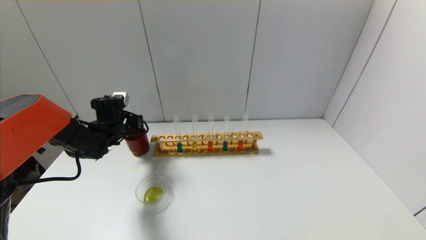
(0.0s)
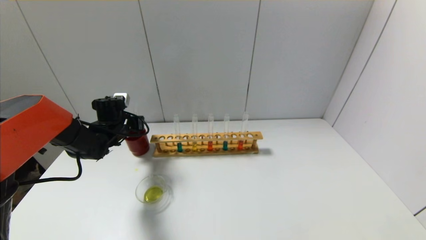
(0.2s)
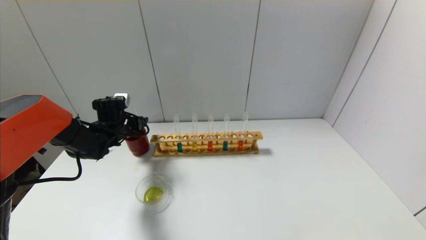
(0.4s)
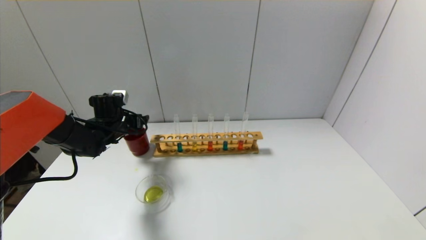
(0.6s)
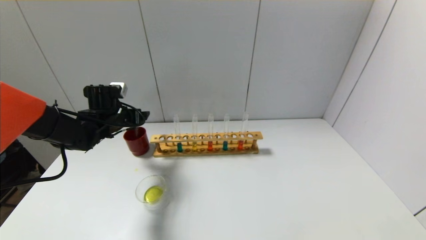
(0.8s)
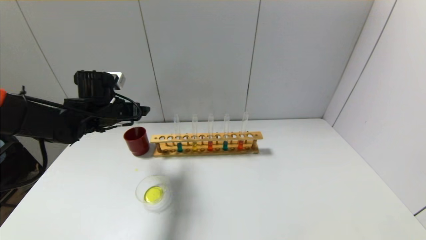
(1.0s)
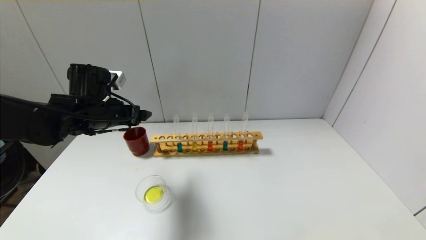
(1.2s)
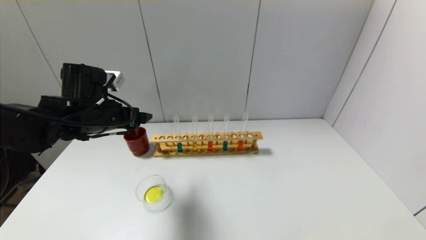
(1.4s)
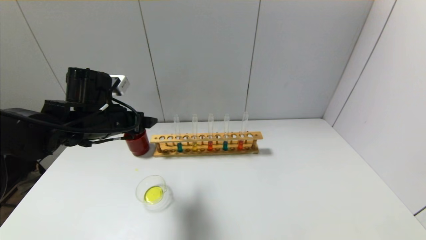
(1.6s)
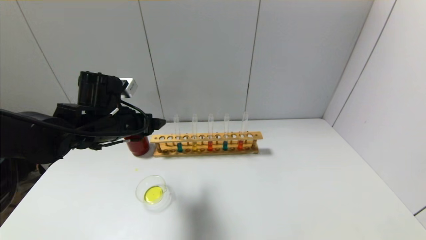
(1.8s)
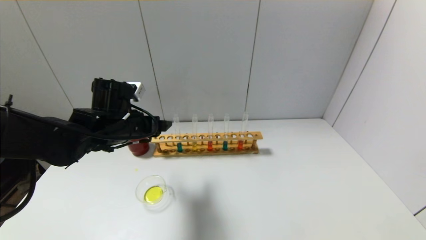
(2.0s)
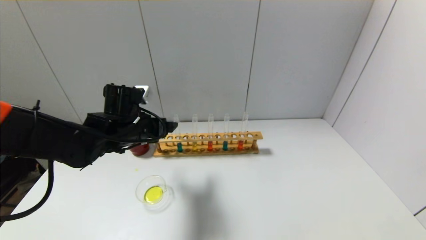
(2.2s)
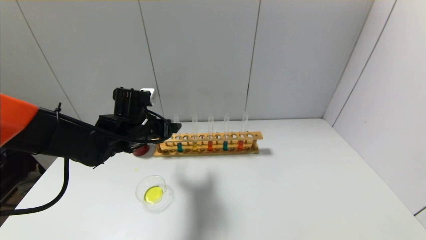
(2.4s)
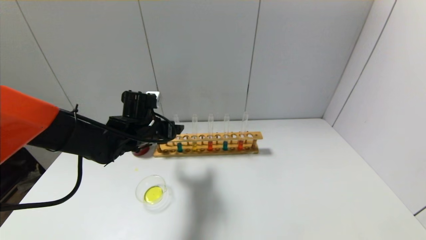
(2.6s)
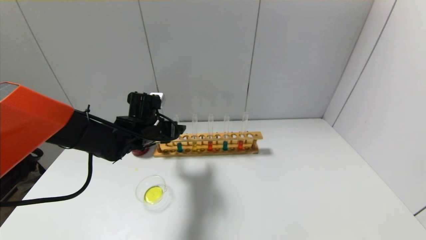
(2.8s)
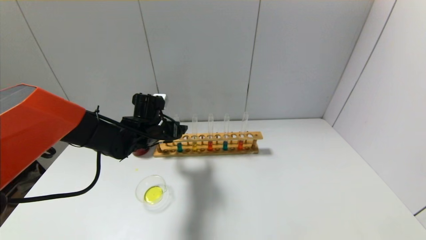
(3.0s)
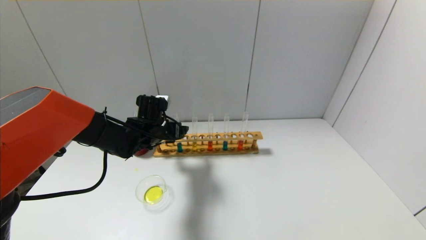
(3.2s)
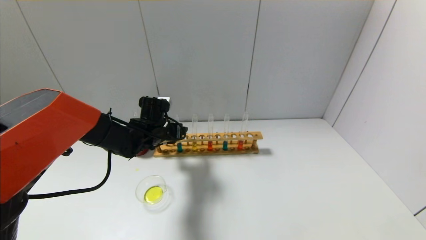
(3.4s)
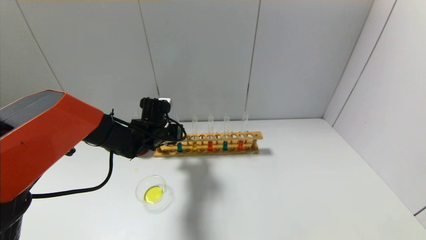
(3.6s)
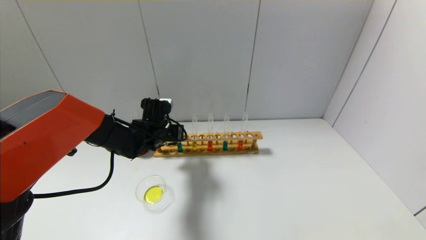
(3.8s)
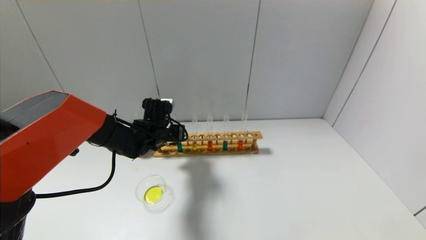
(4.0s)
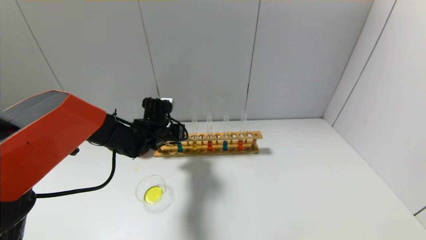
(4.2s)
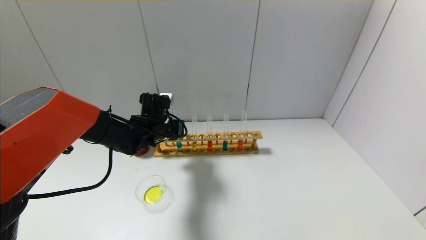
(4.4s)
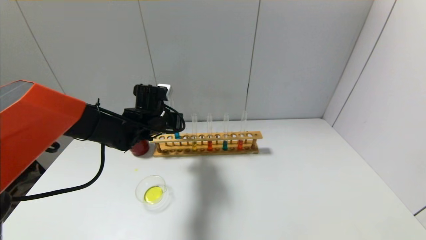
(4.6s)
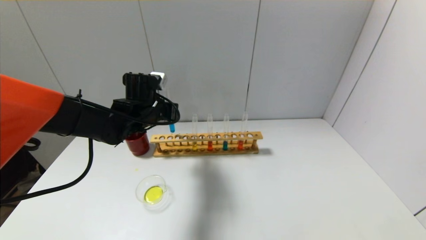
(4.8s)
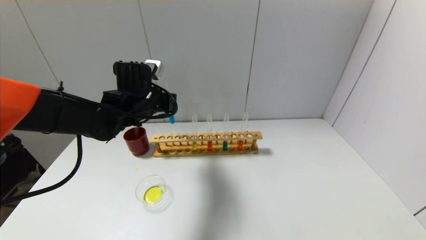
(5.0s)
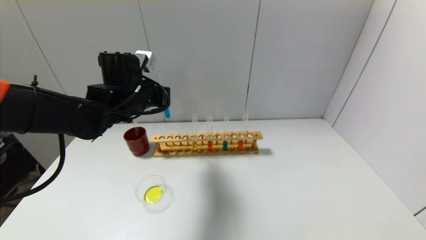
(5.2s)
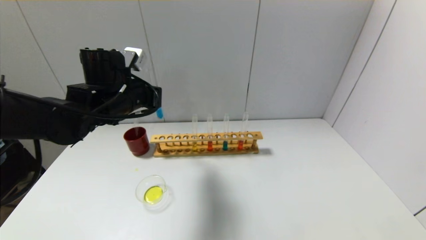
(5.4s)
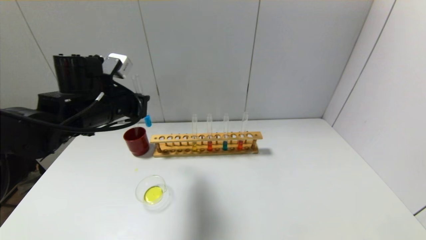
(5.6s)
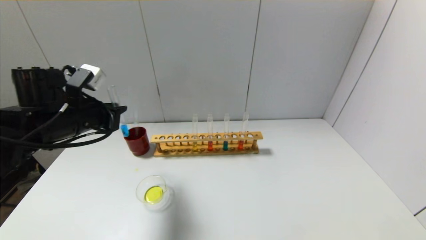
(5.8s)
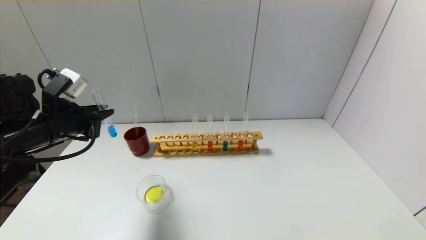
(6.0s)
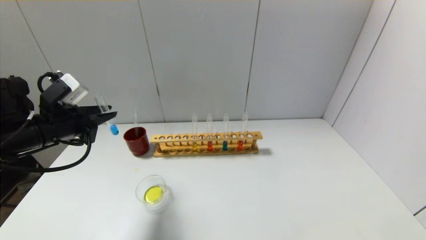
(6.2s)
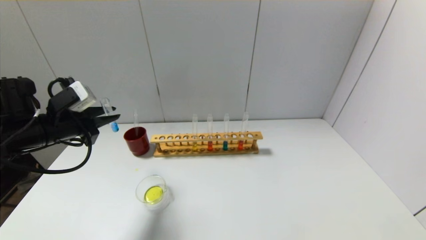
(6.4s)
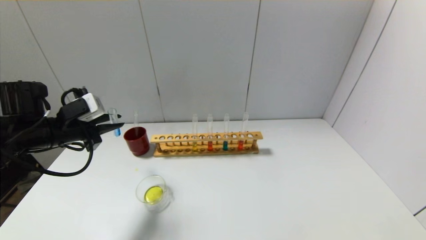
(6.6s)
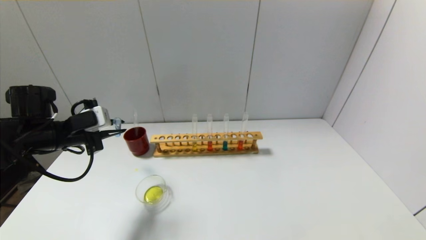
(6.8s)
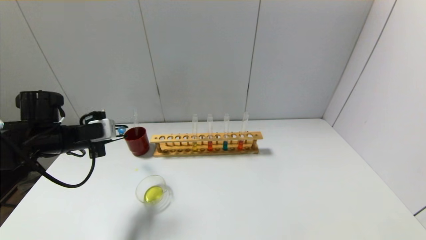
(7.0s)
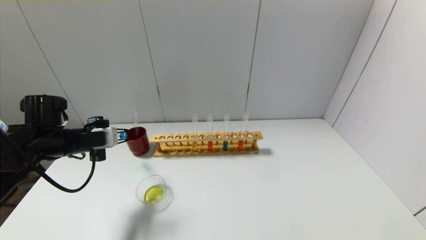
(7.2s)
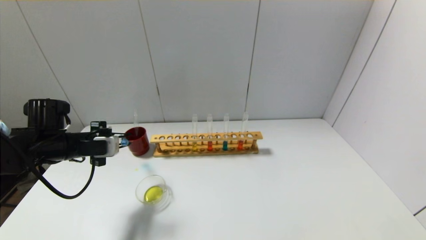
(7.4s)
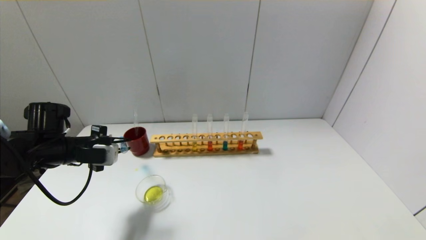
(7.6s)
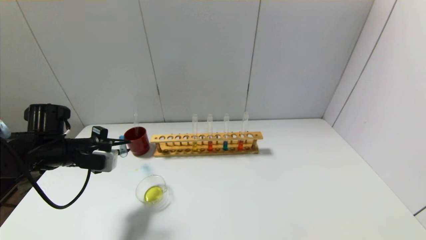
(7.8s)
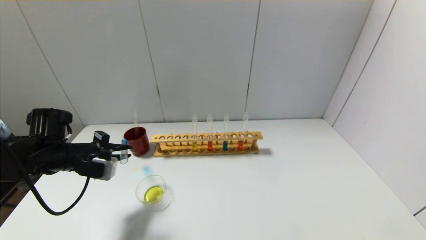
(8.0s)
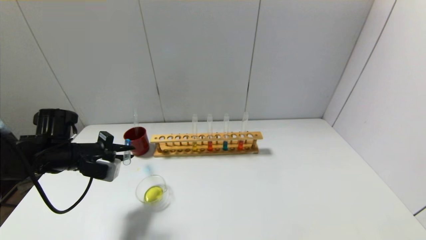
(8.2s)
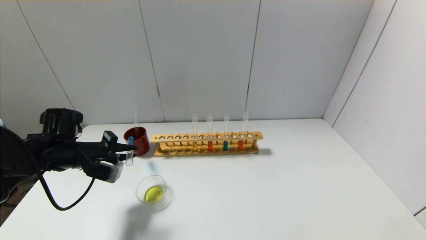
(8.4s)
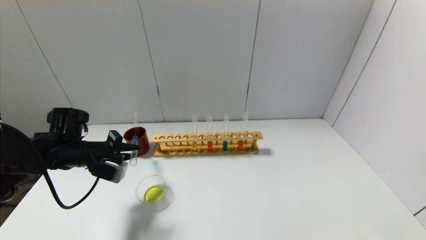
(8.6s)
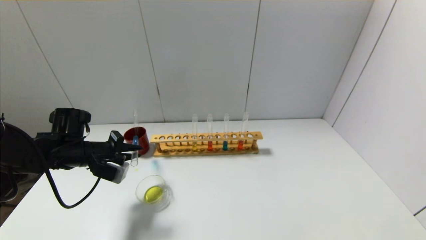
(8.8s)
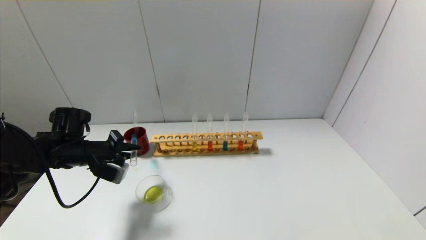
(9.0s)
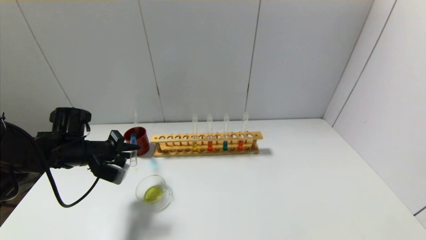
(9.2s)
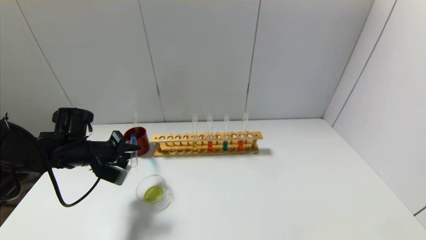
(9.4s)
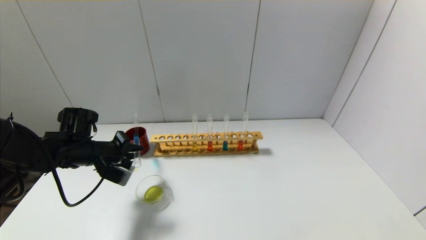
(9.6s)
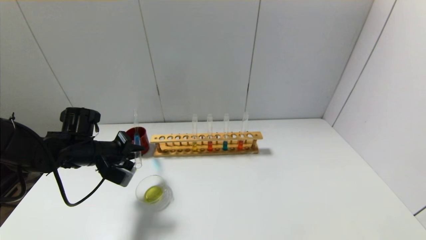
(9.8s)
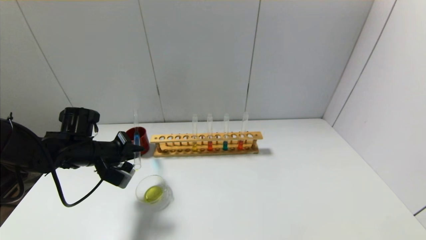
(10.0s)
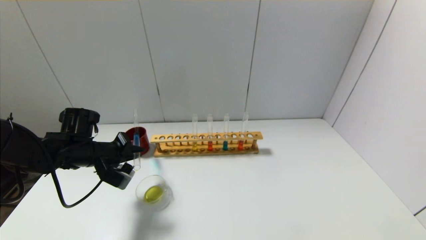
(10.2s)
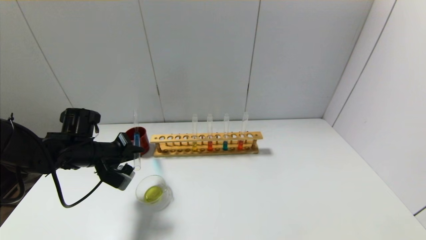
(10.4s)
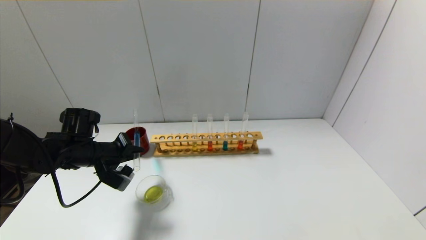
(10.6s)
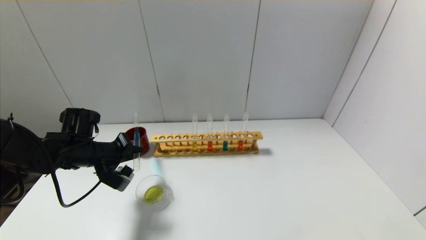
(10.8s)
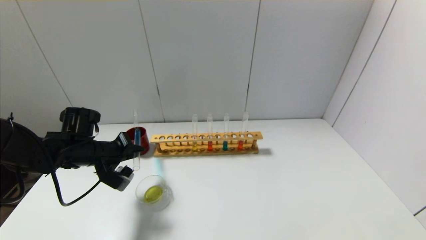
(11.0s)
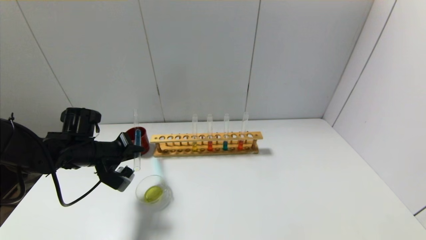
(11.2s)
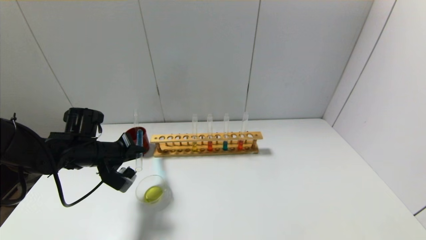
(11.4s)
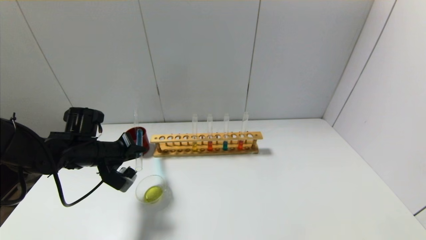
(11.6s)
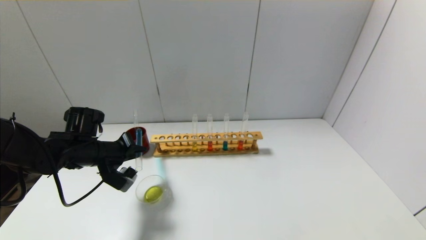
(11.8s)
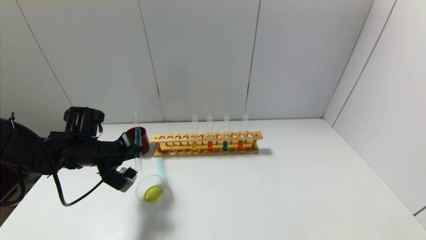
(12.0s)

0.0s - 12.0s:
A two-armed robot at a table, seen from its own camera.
Step, 0.4s - 4.0s: Grasp the blue reagent with the left gripper.
0.0s - 1.6s: The left gripper travels backward, upward and to the right by approximately 15 cm, and opens its fingers.
1.6s - 3.0s: The left gripper moves forward, downward and to the right, approximately 15 cm.
3.0s - 4.4s: The left gripper closes.
4.4s - 6.0s: The left gripper shifts approximately 20 cm to the left, backward and upward.
6.0s - 7.6s: The left gripper is displaced downward by roughly 5 cm.
9.0s - 10.4s: There are only small adjustments of the grippers.
10.4s - 12.0s: There are only small adjustments of the grippers.

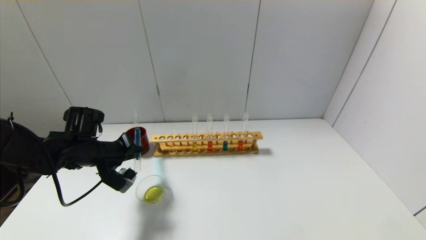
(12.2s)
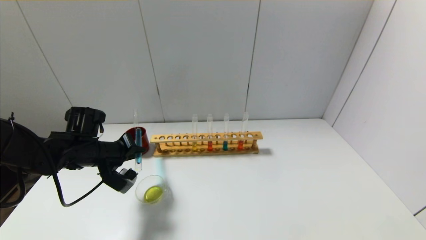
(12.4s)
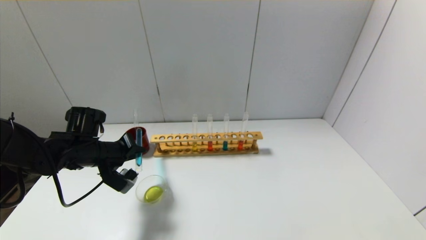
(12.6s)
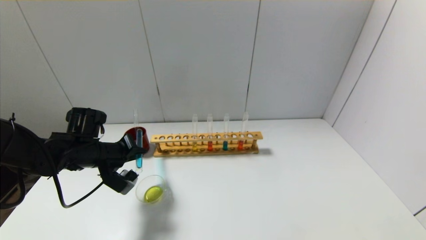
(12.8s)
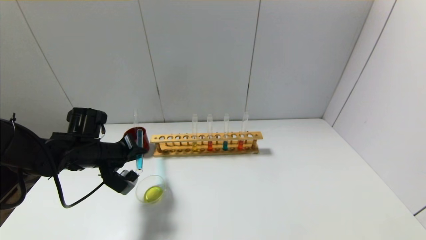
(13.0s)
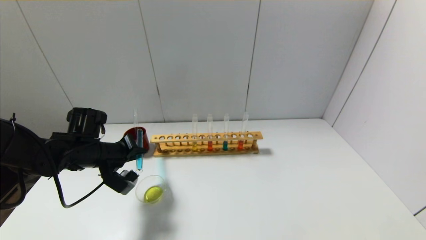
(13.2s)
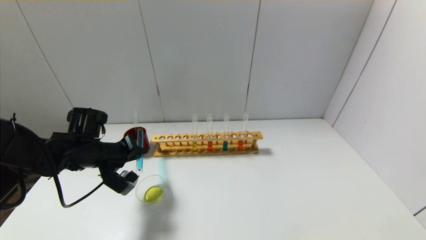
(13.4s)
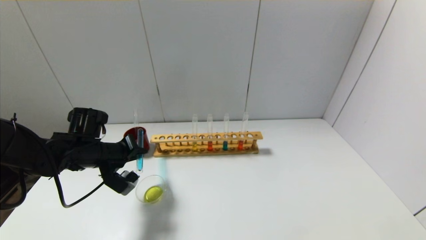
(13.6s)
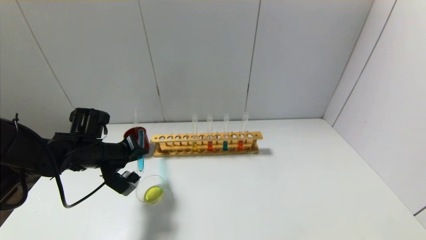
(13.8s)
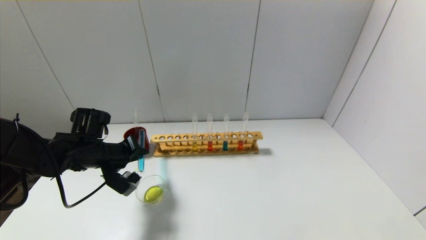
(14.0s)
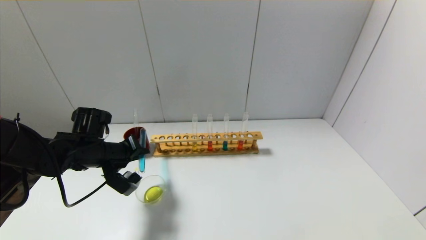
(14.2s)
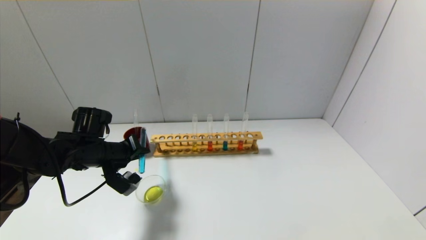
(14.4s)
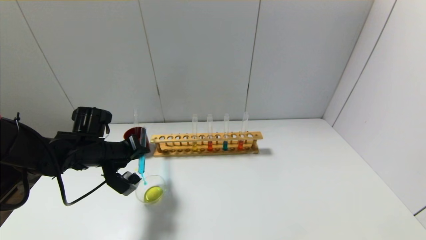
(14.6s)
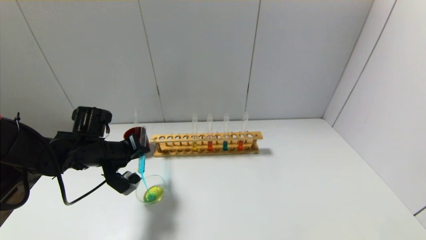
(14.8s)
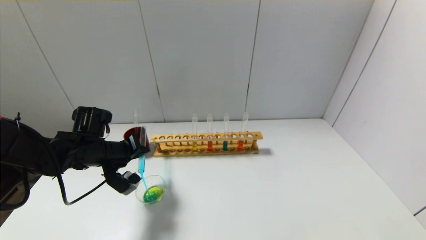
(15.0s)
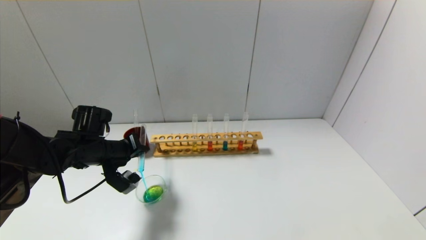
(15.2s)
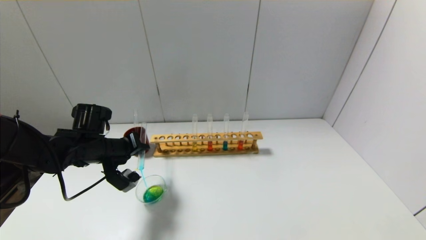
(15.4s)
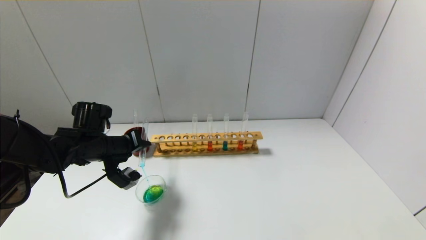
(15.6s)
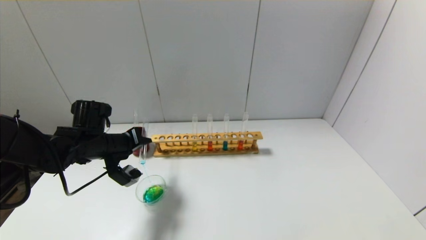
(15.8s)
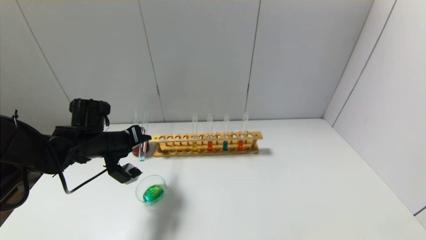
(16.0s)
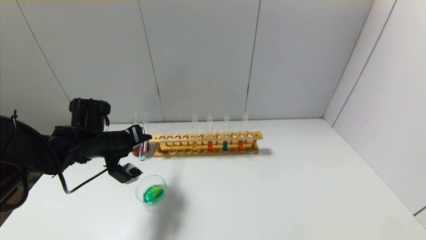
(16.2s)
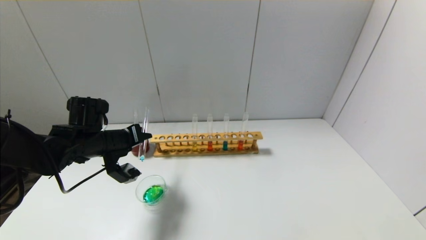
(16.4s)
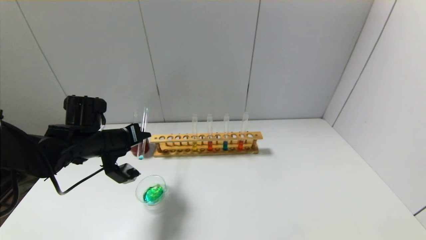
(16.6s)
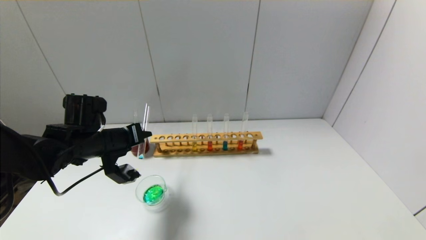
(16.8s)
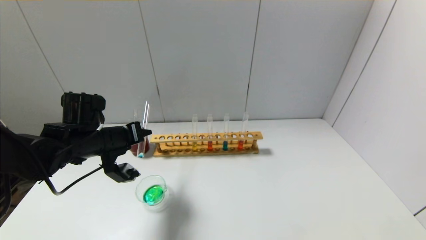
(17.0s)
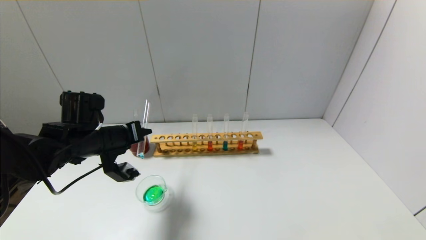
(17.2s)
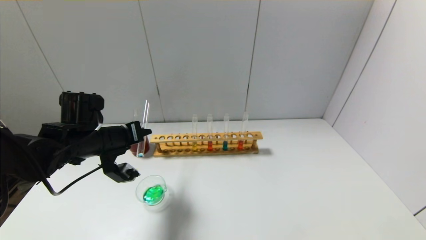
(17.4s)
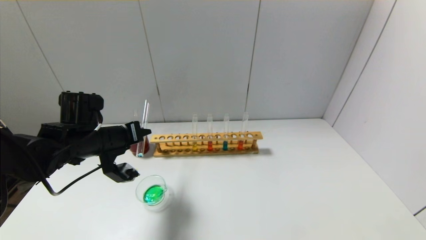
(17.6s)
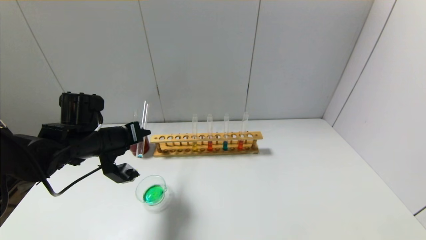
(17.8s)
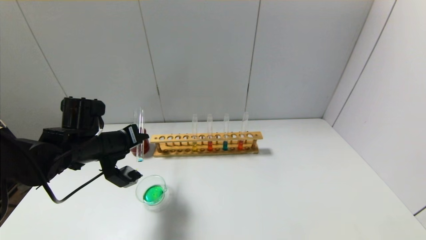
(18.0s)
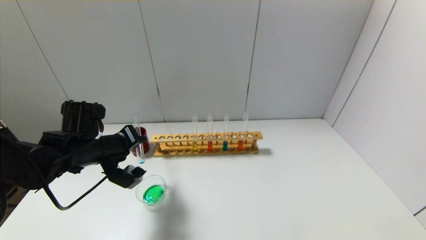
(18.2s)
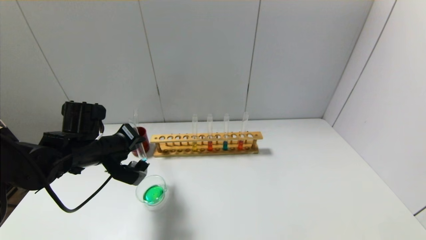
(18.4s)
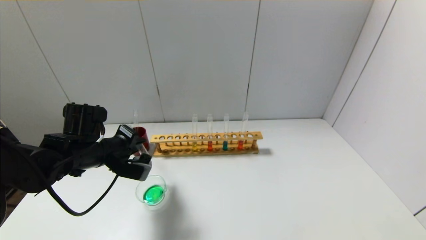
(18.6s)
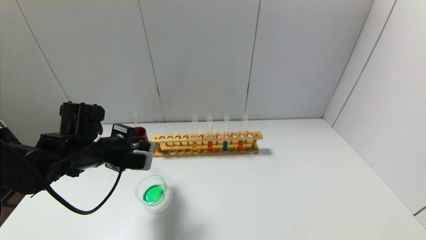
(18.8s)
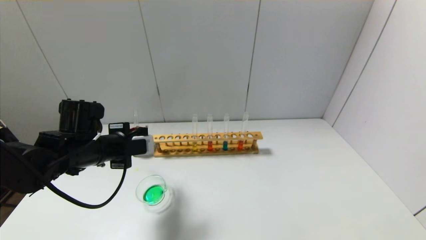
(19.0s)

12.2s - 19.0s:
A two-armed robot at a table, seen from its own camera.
Step, 12.2s - 18.2s: Pour the blue reagent into the graduated cylinder with the left gripper.
12.2s - 13.6s: Neither gripper changes place.
13.6s - 16.2s: There are only small adjustments of the grippers.
16.2s - 17.6s: There are only small adjustments of the grippers.
